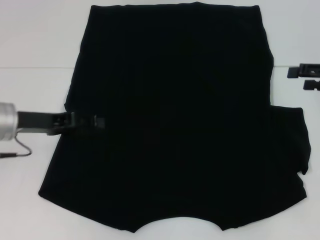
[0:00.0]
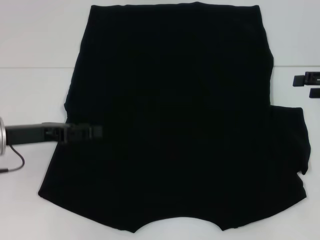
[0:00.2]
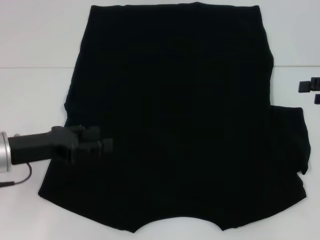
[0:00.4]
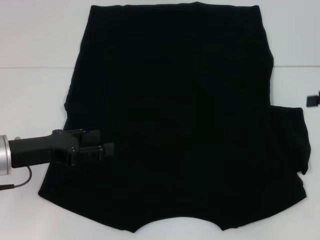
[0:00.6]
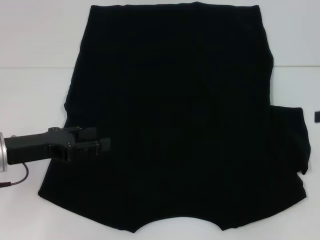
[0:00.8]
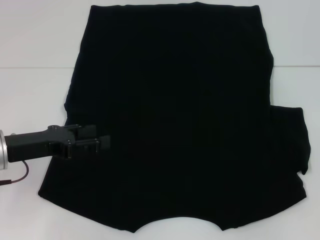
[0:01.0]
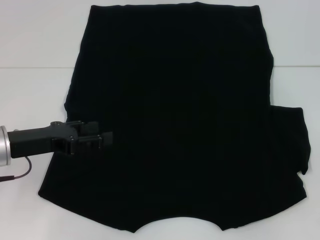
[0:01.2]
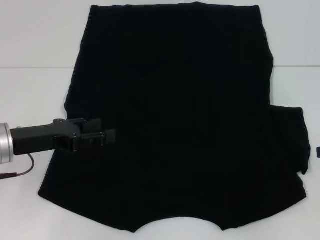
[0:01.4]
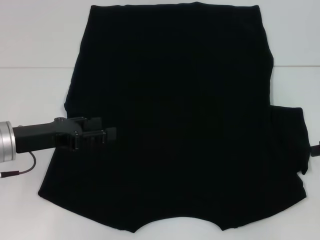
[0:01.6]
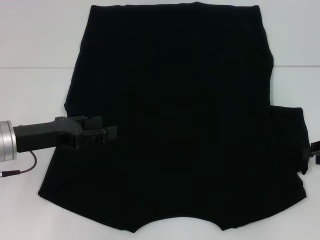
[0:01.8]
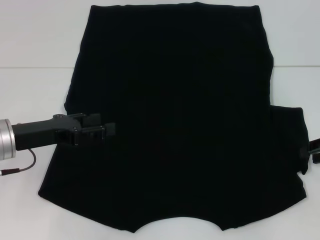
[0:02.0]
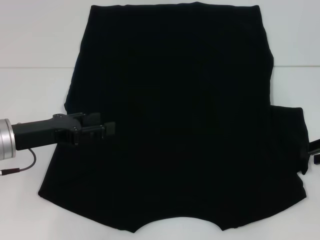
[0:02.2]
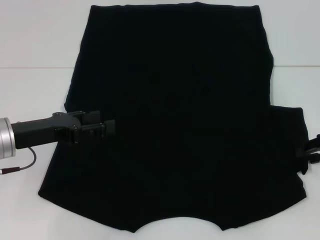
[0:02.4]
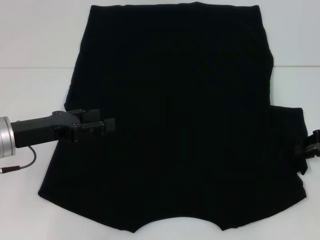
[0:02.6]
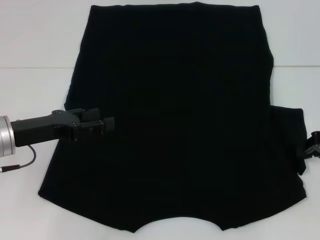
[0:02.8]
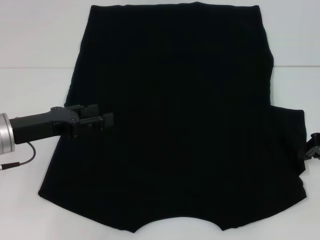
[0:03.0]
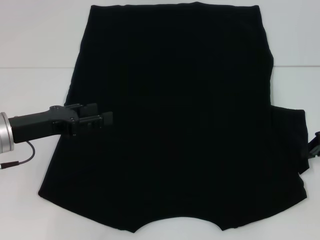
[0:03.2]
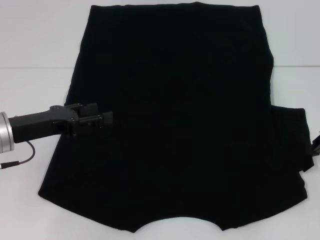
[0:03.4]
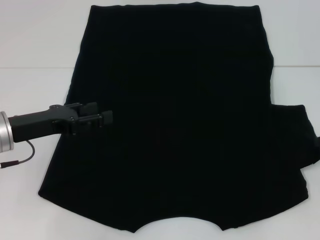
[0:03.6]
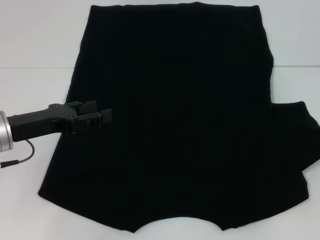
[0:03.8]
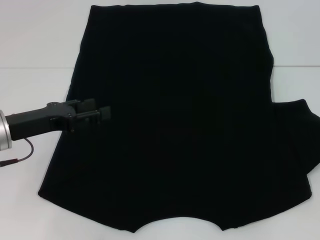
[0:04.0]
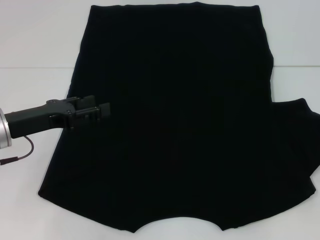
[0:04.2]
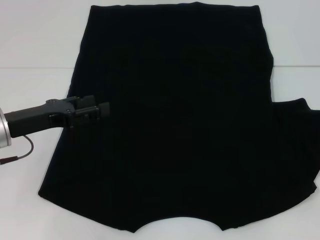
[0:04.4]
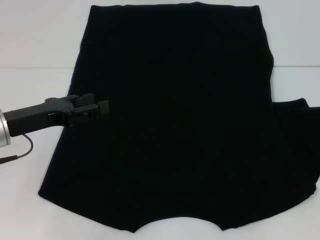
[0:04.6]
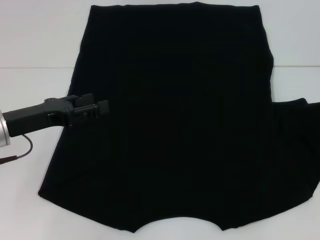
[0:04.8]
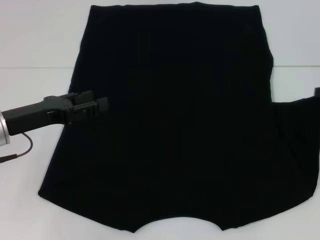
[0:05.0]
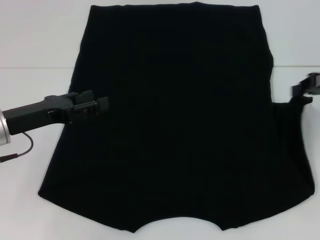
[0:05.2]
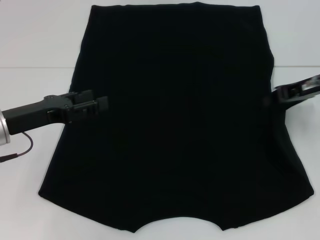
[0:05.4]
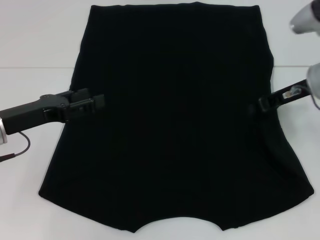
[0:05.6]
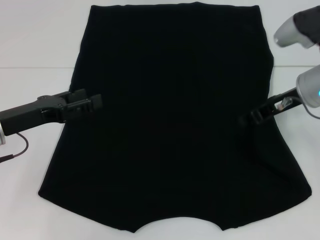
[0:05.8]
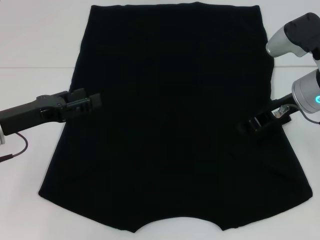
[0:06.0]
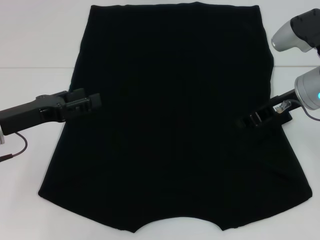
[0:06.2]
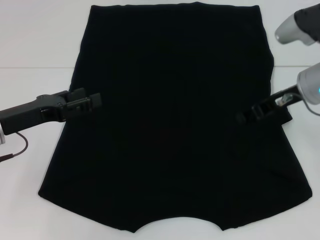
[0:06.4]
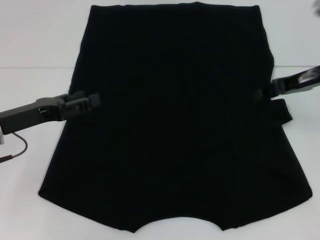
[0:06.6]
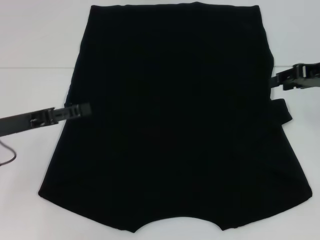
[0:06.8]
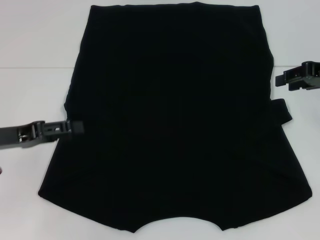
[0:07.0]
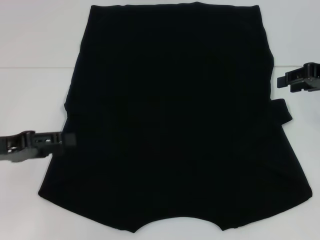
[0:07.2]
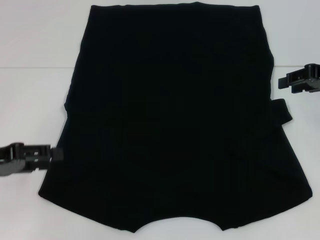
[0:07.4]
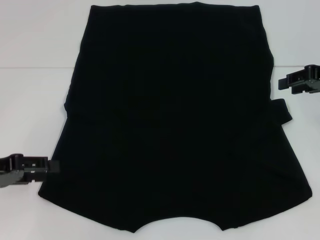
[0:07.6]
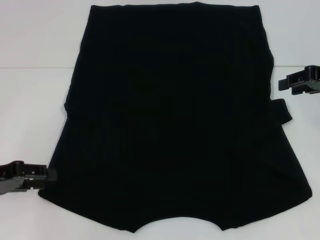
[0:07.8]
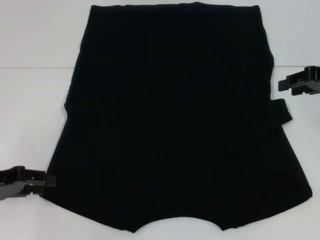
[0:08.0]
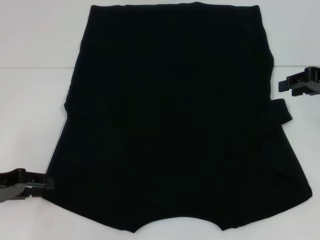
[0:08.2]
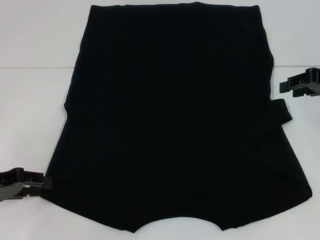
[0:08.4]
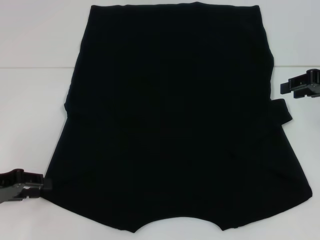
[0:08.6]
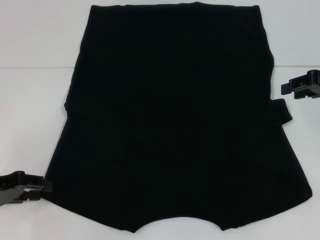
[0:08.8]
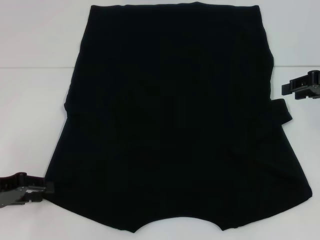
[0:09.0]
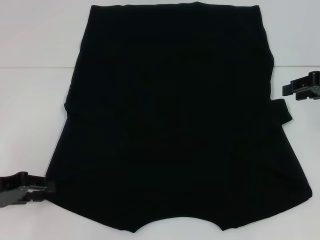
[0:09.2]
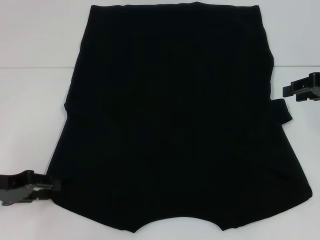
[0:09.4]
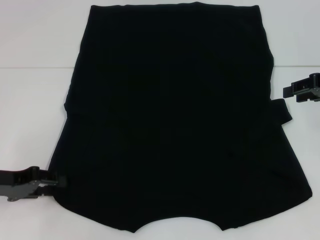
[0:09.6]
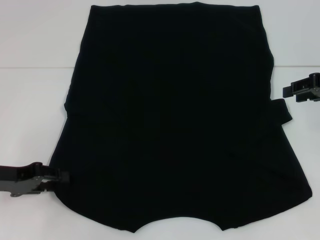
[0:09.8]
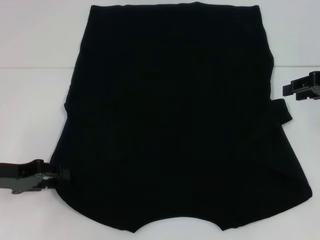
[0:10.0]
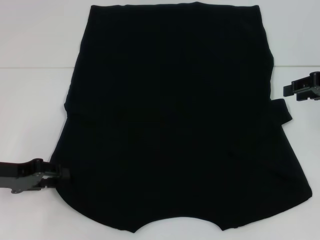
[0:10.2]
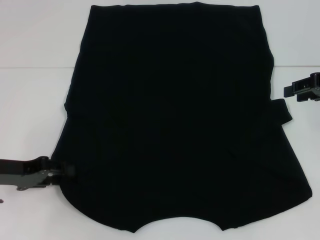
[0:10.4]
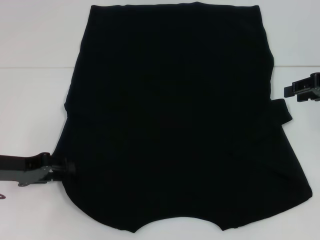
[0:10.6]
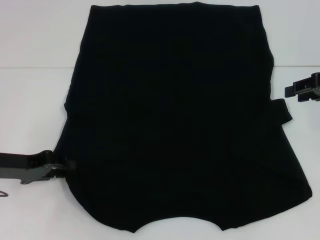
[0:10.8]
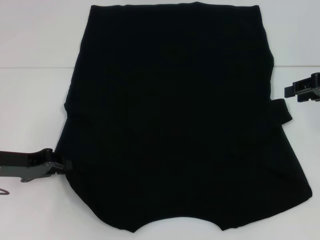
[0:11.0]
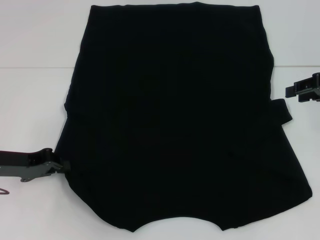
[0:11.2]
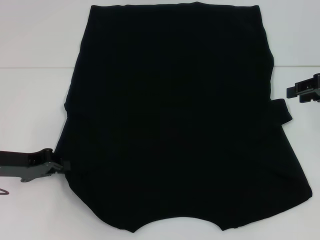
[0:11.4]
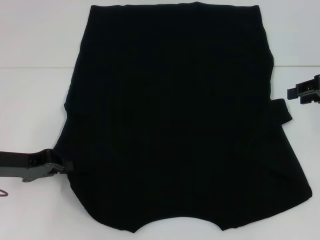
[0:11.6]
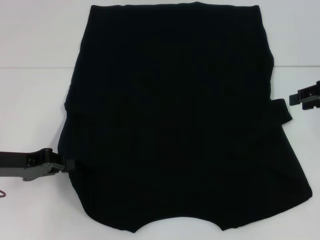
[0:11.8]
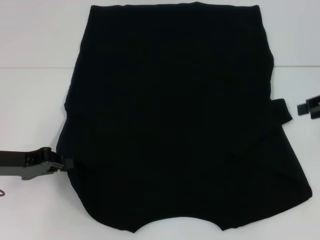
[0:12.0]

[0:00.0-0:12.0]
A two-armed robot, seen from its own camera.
Step, 0:00.0 to 0:07.6: Fold the bottom right sleeve with your right hand.
0:00.0 to 0:01.6: The right gripper changes place by roughly 5 cm, and closes up.
0:01.6 to 0:03.0: The right gripper closes.
0:03.0 to 0:04.4: The right gripper ends up about 5 cm from where it was.
0:04.4 to 0:06.0: The right gripper shifts approximately 15 cm to the left.
0:06.0 to 0:07.6: The left gripper is displaced to the left by some 5 cm. Meanwhile the right gripper heads to the right, covering roughly 10 cm, and opens.
0:07.6 to 0:10.4: There are only small adjustments of the grippers.
0:10.4 to 0:12.0: The left gripper closes its fingers.

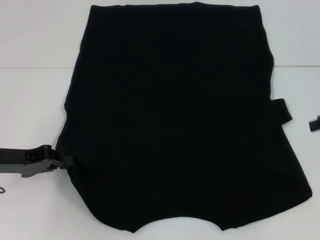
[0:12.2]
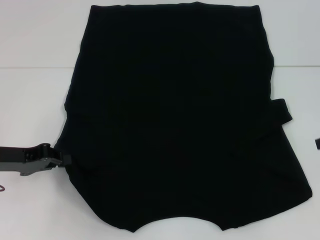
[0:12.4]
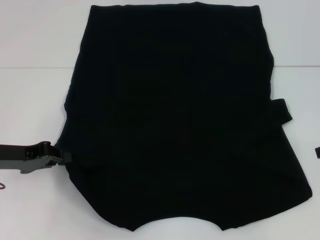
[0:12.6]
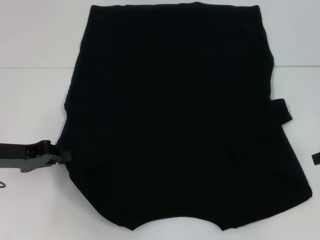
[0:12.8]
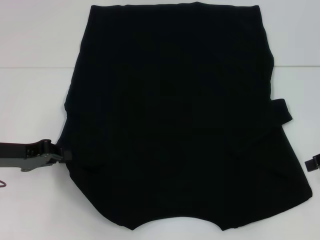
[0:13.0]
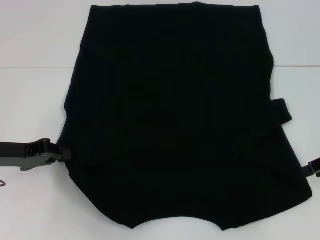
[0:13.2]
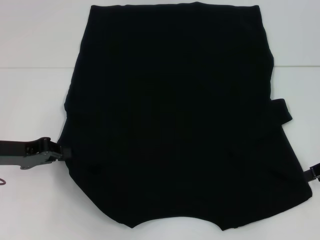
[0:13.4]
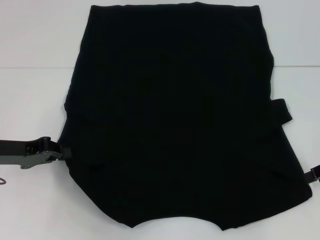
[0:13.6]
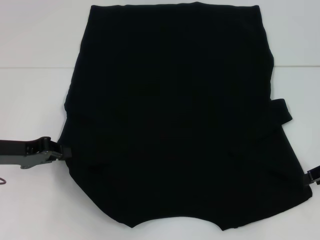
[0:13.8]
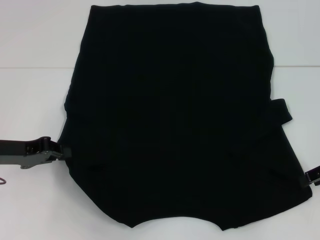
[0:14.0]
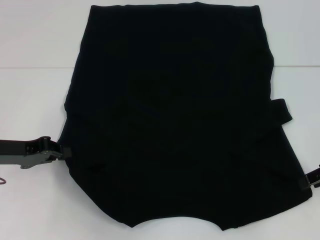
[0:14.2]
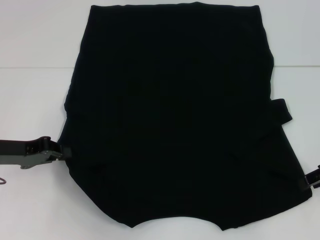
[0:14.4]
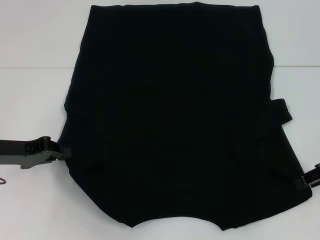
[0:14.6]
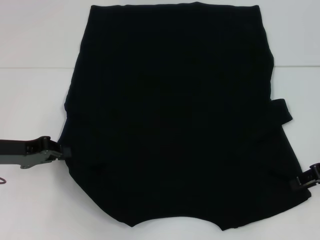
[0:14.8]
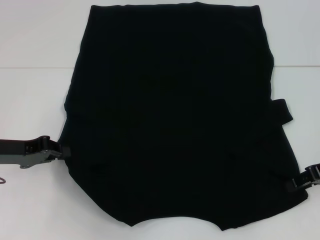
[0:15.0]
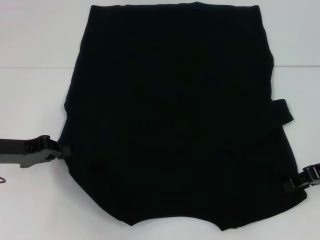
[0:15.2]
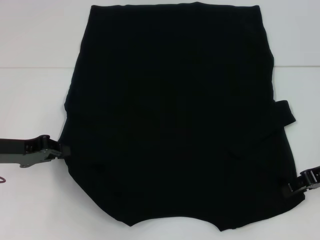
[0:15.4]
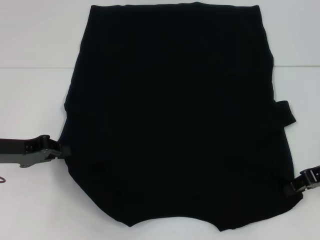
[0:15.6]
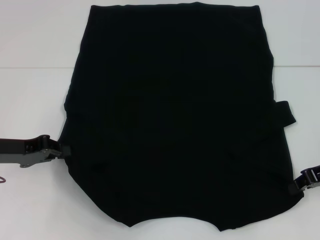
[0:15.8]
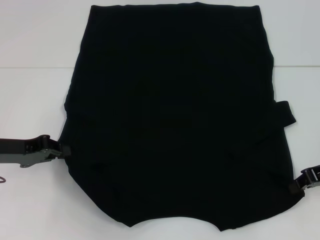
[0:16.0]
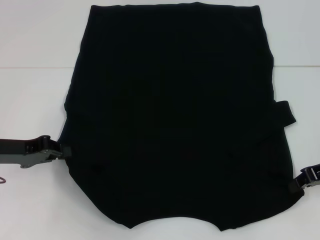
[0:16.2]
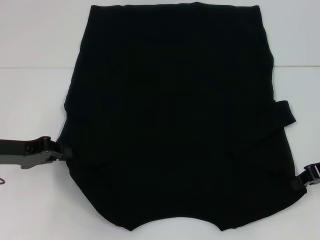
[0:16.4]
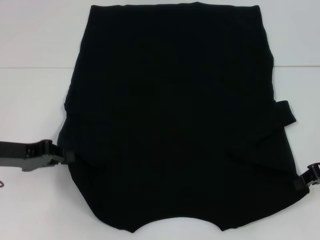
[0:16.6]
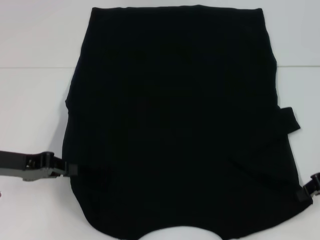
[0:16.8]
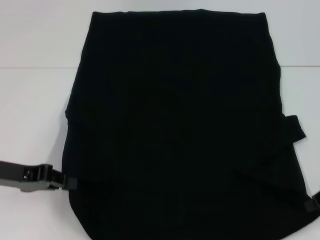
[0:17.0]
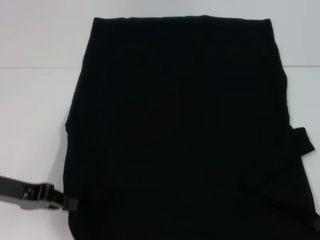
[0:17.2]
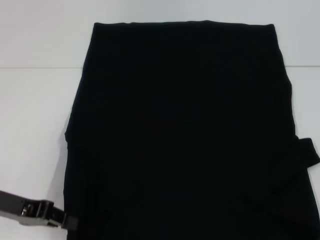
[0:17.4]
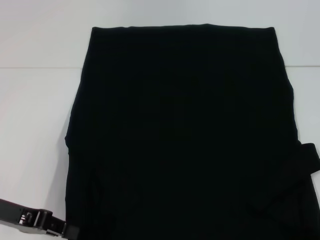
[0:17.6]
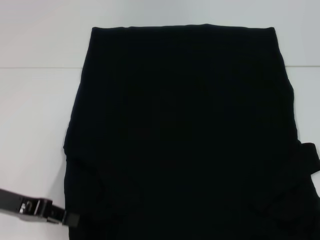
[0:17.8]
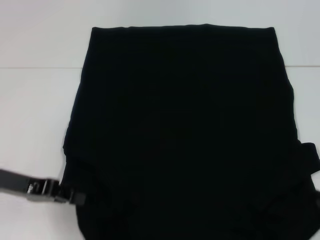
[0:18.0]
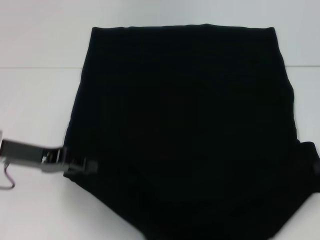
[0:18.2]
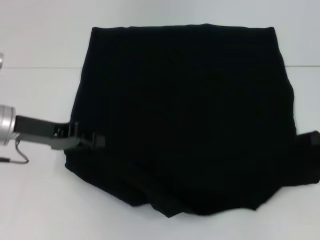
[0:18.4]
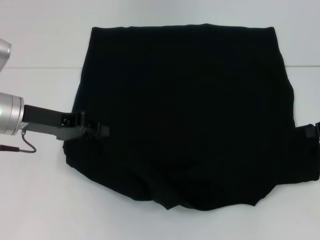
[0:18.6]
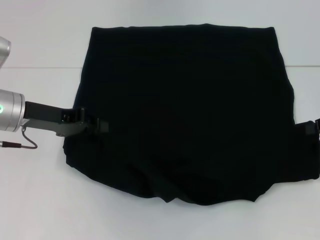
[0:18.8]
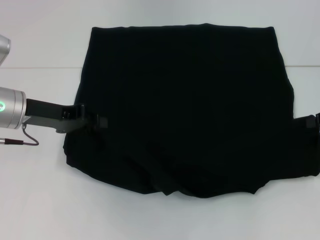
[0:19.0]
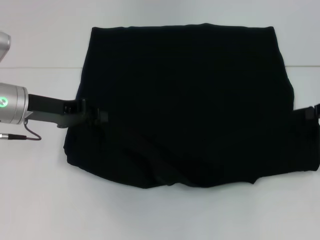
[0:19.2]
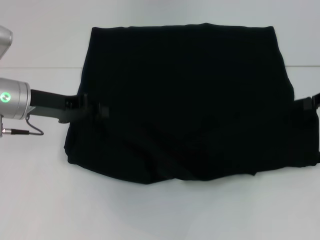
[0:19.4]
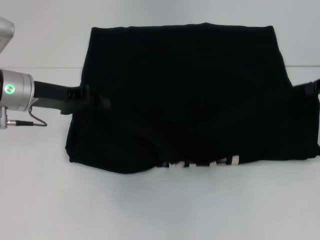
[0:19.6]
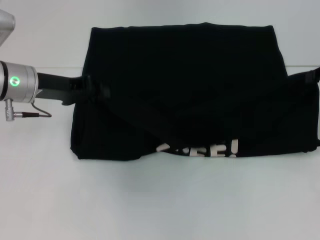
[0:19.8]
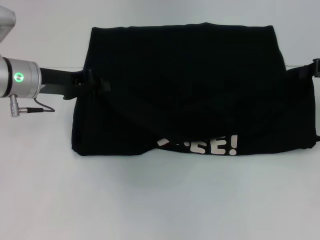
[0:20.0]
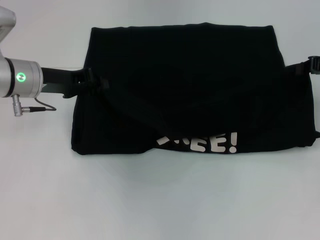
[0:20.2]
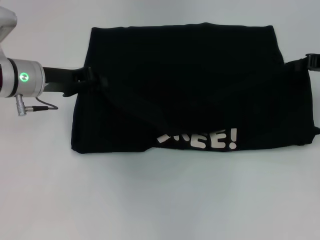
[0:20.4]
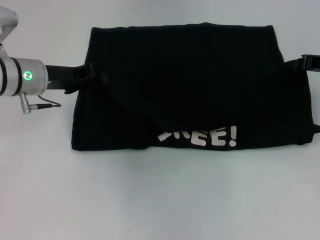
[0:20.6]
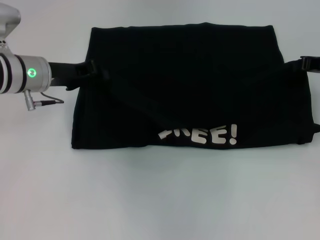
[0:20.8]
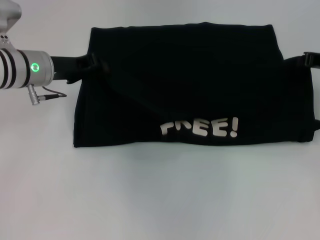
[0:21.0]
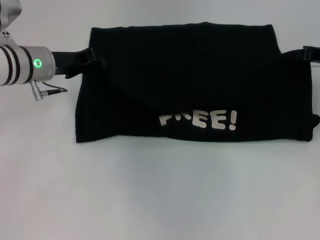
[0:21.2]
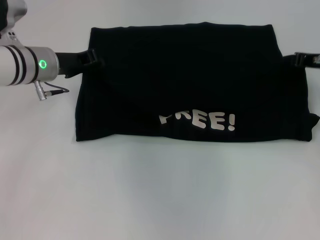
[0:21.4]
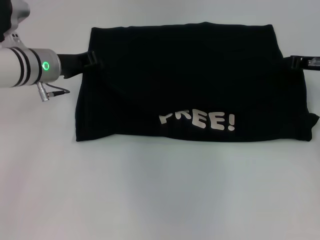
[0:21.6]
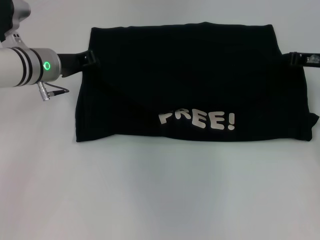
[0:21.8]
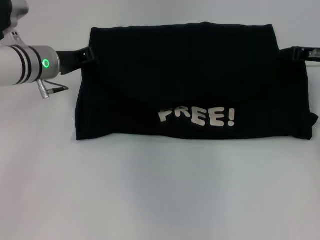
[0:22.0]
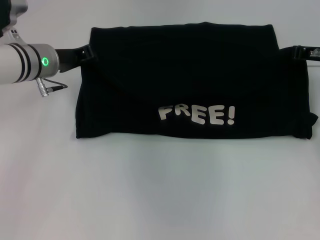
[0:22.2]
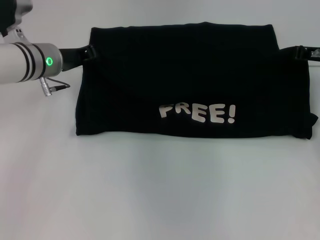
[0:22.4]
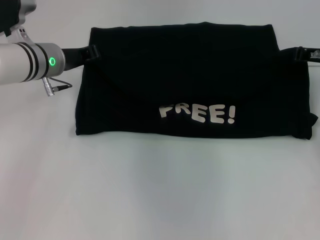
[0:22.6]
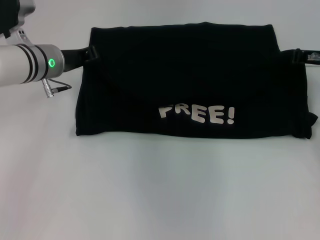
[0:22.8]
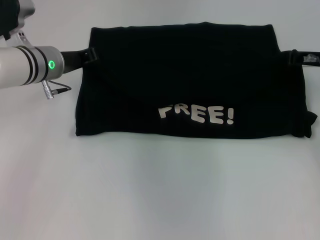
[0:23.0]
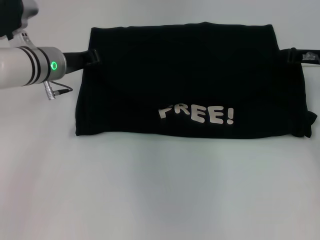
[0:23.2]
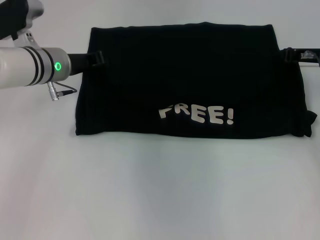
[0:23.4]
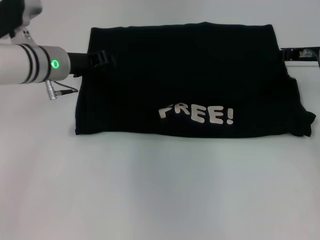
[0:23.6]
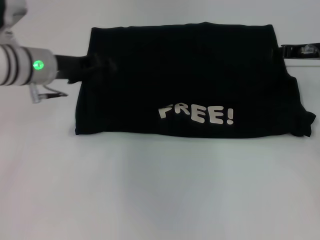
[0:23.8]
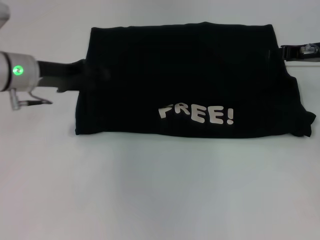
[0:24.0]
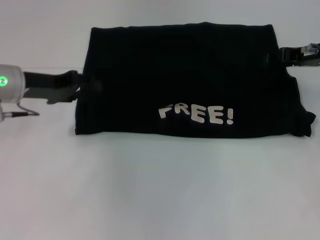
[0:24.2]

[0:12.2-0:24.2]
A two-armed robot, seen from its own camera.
Step, 0:12.2 to 0:17.0: Grab the bottom left corner with your left hand.
Step, 0:12.2 to 0:17.0: Grab the bottom right corner with your right hand.
0:12.2 to 0:13.8: The right gripper moves downward, some 5 cm.
0:13.8 to 0:15.2: The grippers stay close to where they were, moving slightly.
0:15.2 to 0:16.6: The right gripper closes up.
0:16.6 to 0:18.2: The right gripper ends up roughly 5 cm from where it was.
0:18.2 to 0:19.8: Both grippers move forward, approximately 10 cm.
0:19.8 to 0:21.2: The right gripper moves some 5 cm.
0:21.2 to 0:22.6: The grippers move only a little.
0:22.6 to 0:24.2: The left gripper travels backward and to the left by some 10 cm, and opens, while the right gripper opens its fingers.
